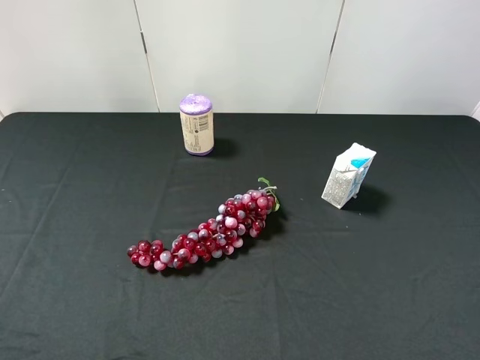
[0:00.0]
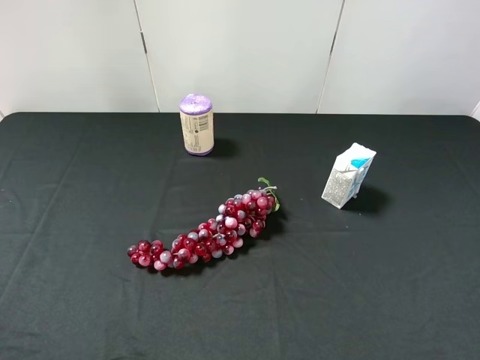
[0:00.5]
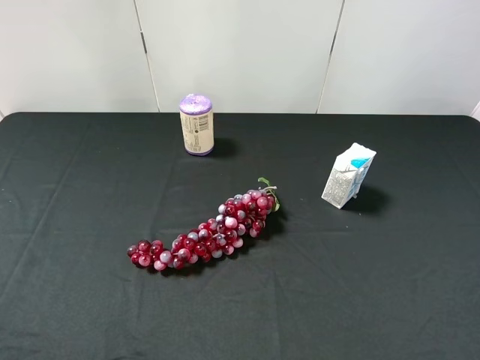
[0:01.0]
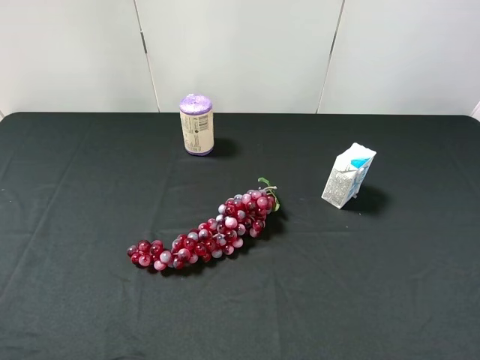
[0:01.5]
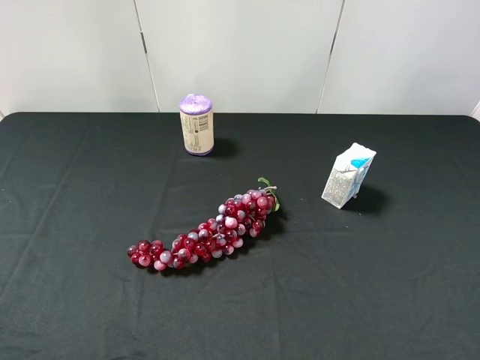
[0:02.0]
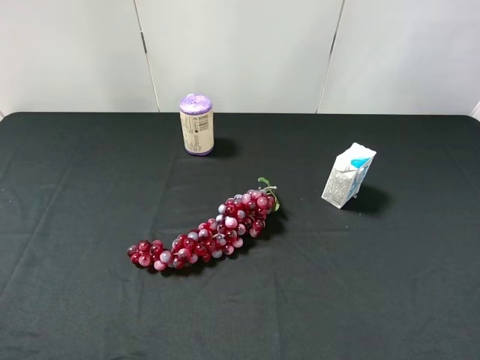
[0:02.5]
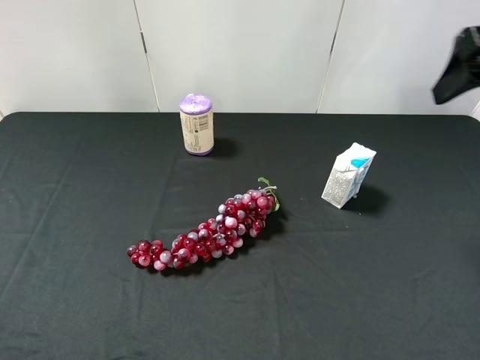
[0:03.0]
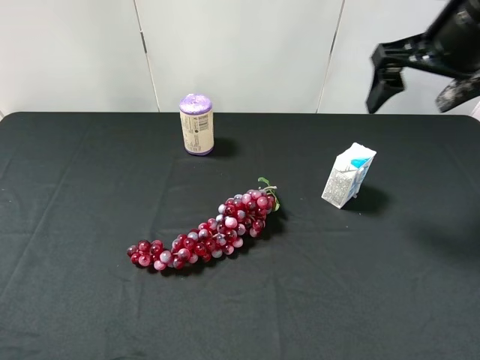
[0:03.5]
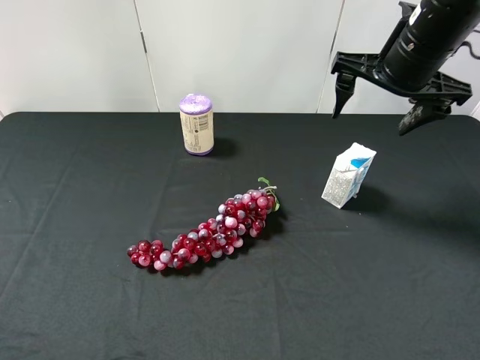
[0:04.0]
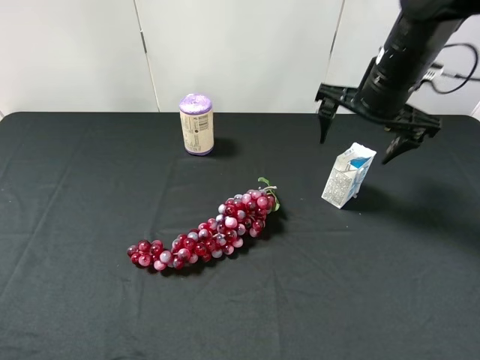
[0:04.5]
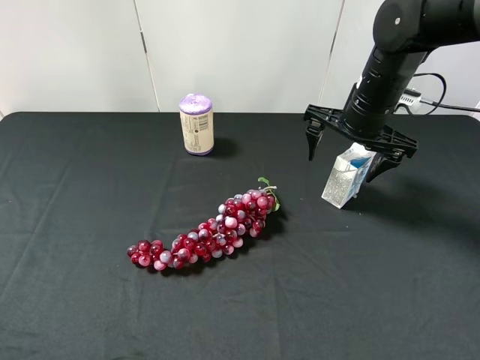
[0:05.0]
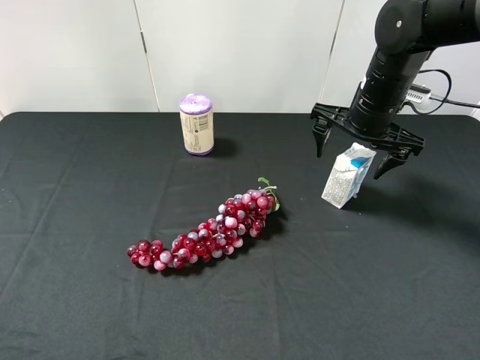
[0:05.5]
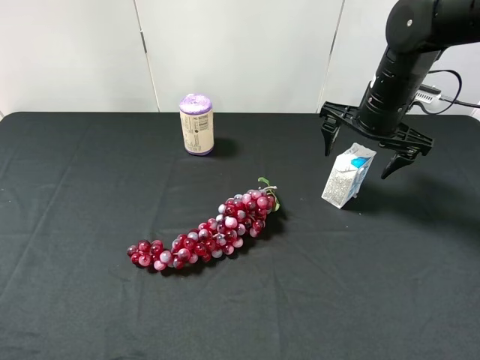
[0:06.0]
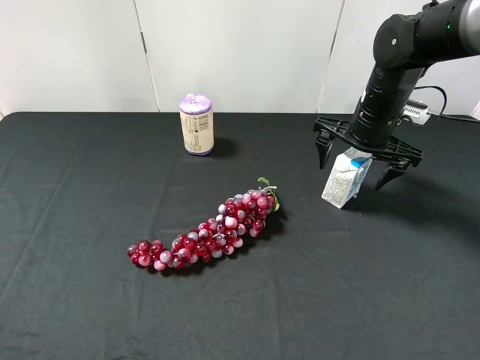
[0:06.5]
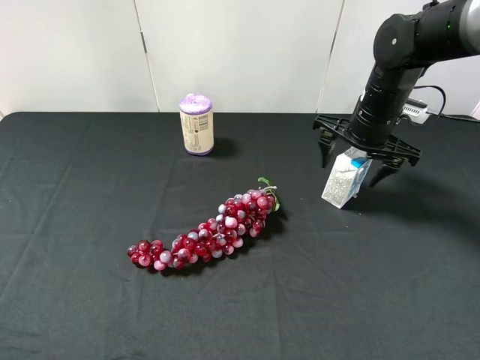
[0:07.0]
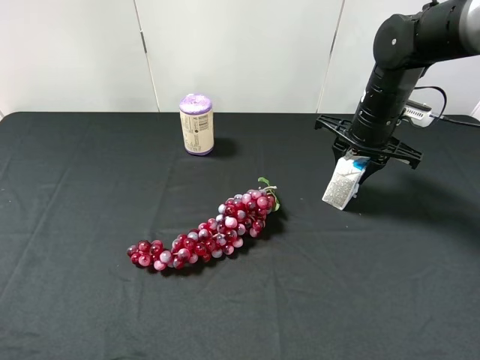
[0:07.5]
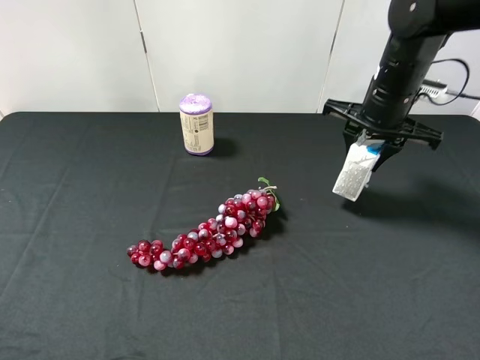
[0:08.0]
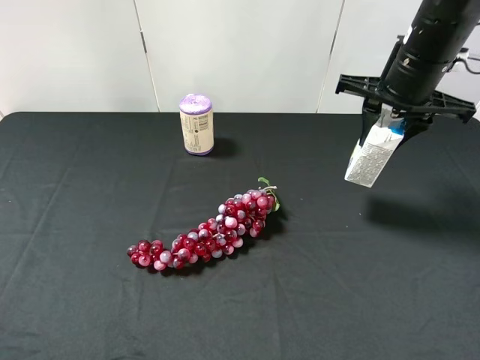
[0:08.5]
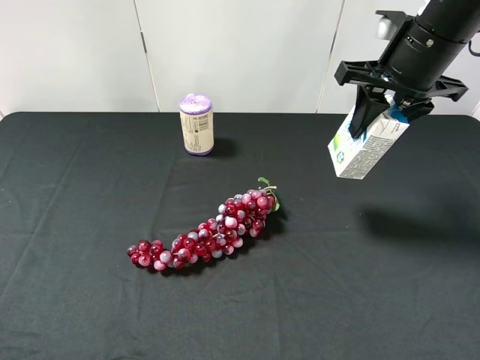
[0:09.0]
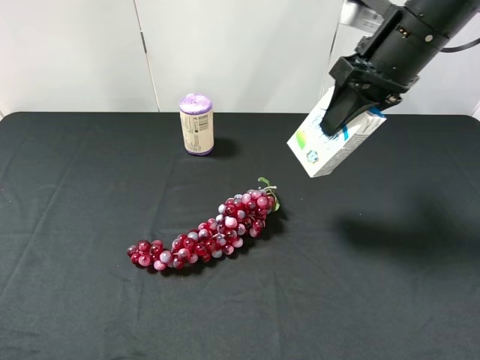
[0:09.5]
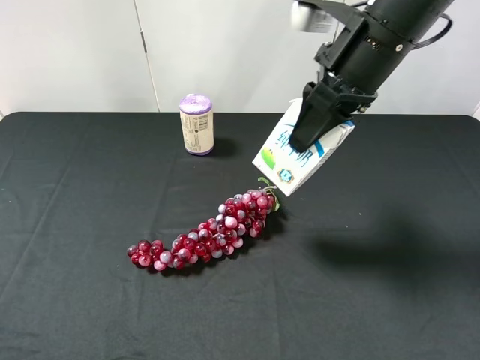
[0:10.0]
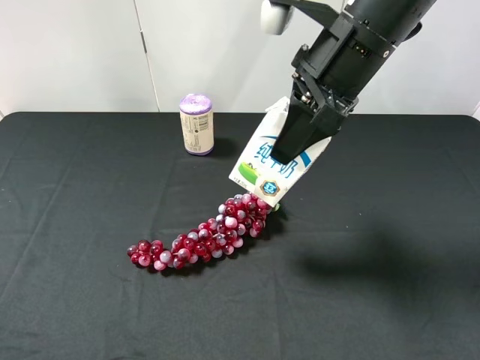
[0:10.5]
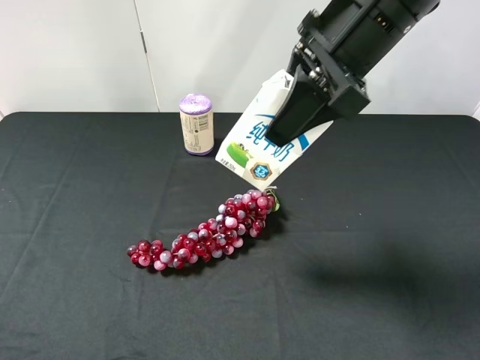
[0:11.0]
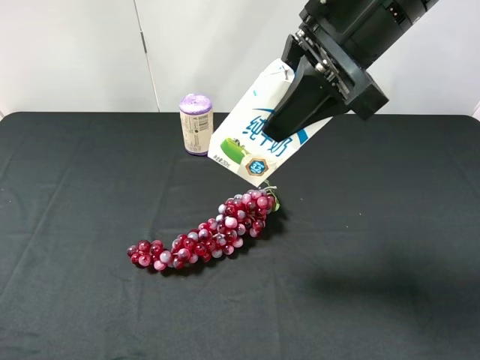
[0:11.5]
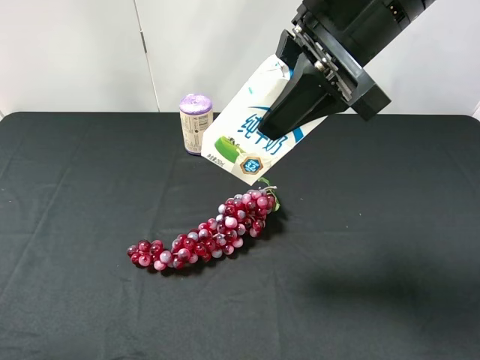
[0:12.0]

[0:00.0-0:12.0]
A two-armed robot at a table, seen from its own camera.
Task of the whole recording: use the right gripper to pick up the item and transfer it from the right gripper to the left gripper.
Step, 0:00.0 to 0:07.0: Use the right gripper to grab the milk on the right side of the table.
0:02.0 to 0:04.0: The right gripper is displaced forward by roughly 30 cm.
0:04.0 to 0:06.0: The right gripper heads downward, covering roughly 10 cm.
0:06.0 to 0:08.0: The right gripper closes up.
0:08.0 to 0:10.0: The right gripper travels upward, to the left and backward by roughly 15 cm.
0:10.0 to 0:12.0: The right gripper ends up some 5 cm from where it was. Meanwhile the left gripper shifts some 5 cm forward.

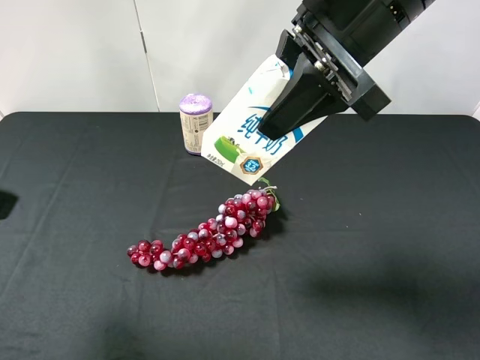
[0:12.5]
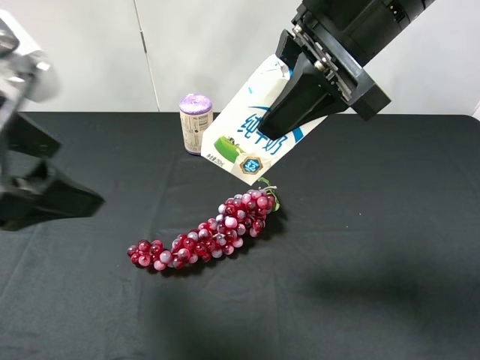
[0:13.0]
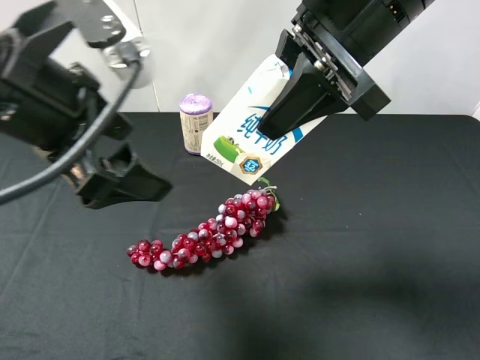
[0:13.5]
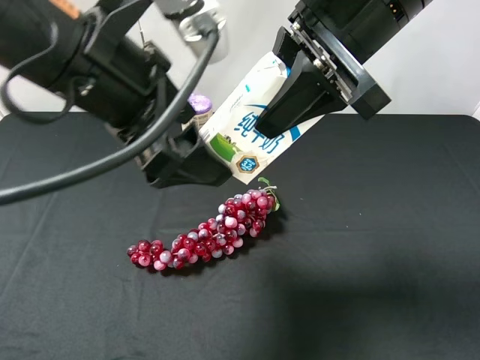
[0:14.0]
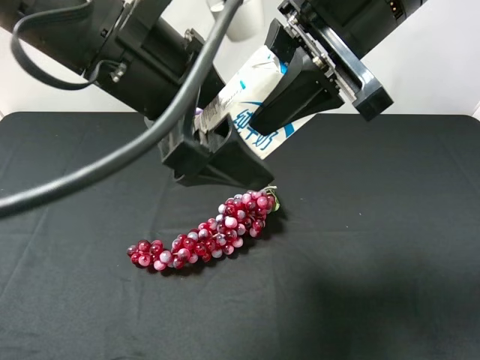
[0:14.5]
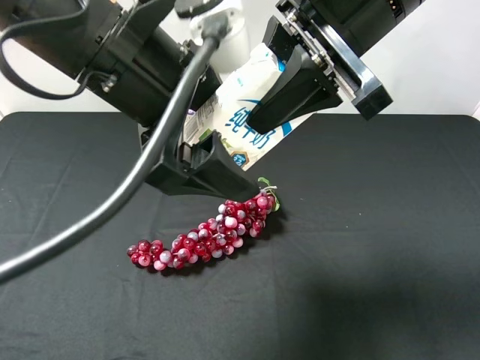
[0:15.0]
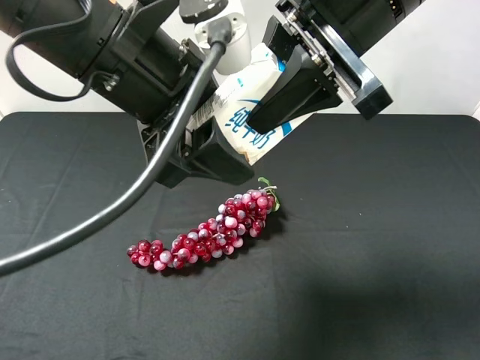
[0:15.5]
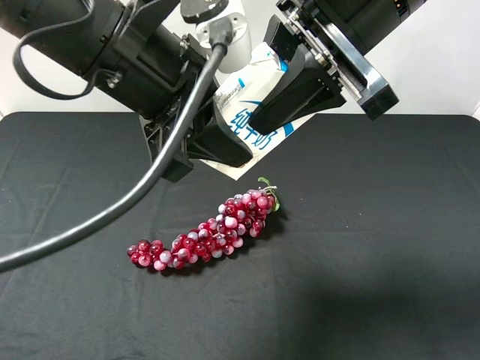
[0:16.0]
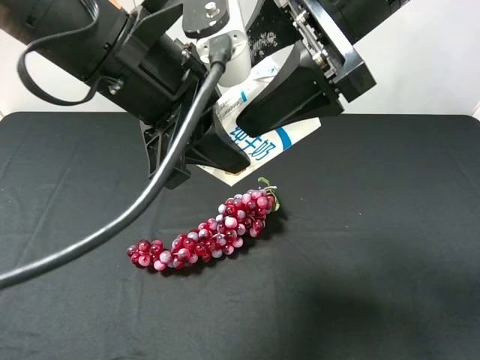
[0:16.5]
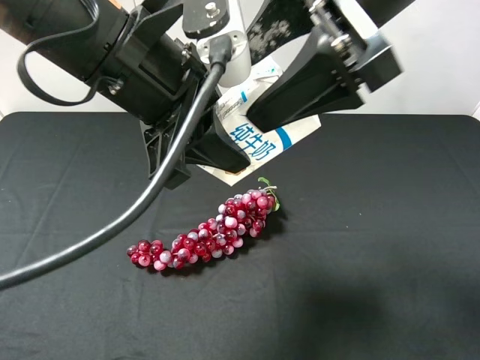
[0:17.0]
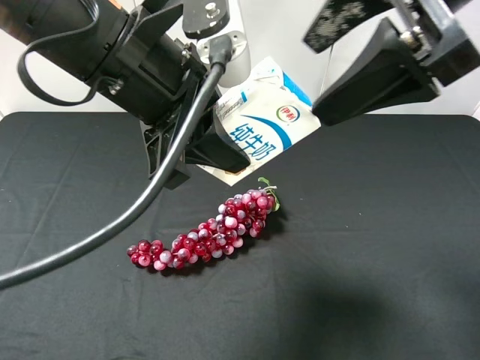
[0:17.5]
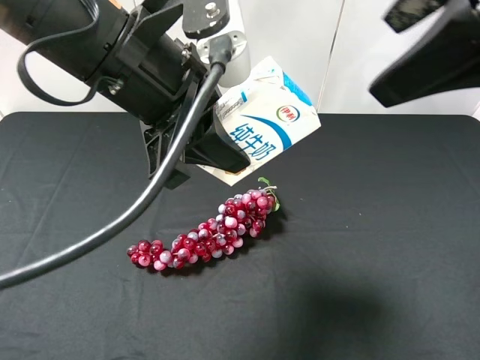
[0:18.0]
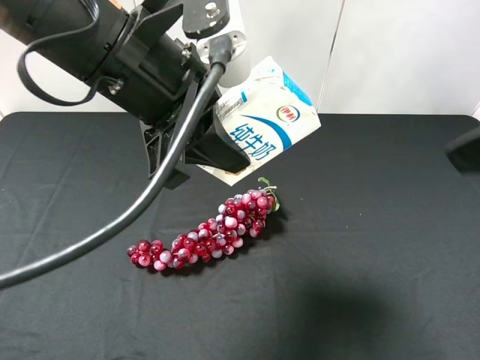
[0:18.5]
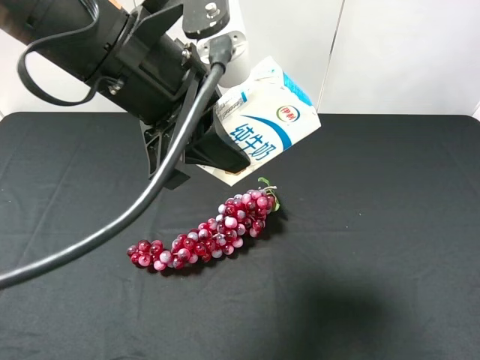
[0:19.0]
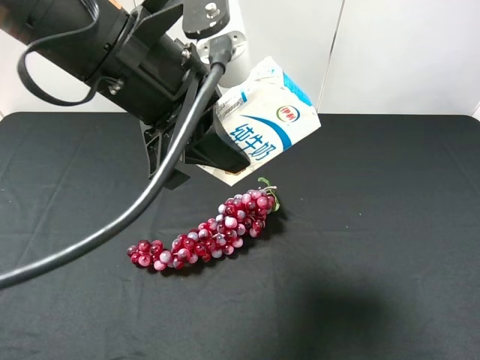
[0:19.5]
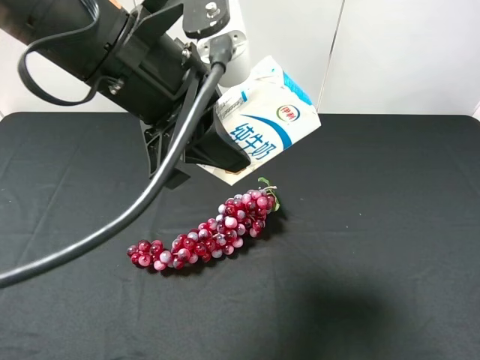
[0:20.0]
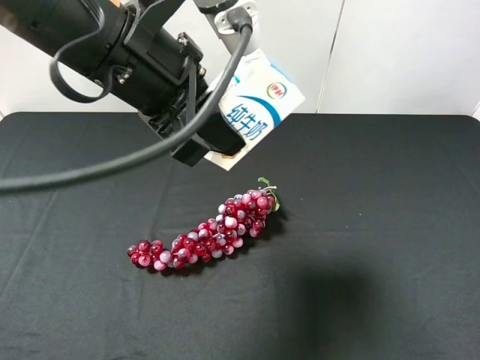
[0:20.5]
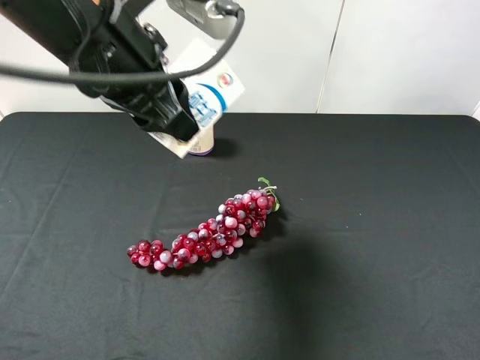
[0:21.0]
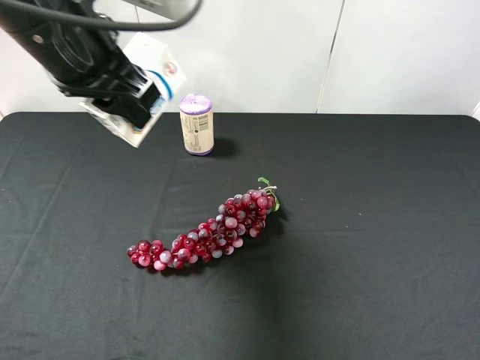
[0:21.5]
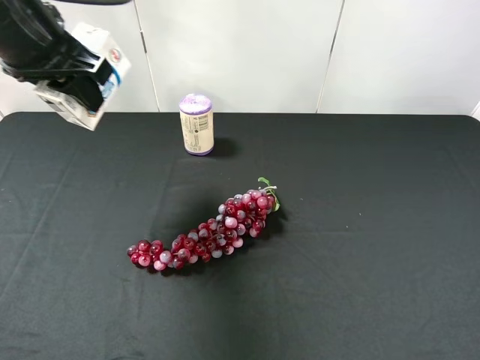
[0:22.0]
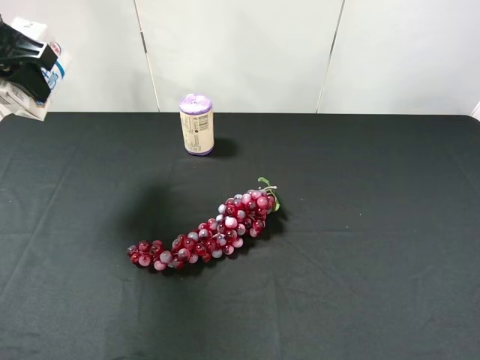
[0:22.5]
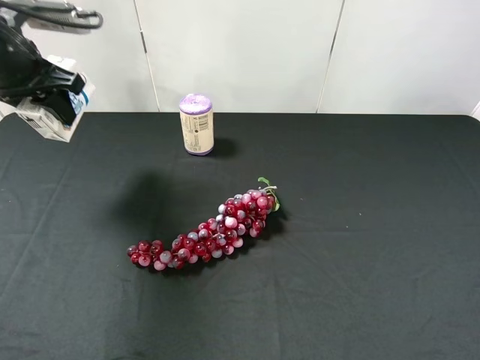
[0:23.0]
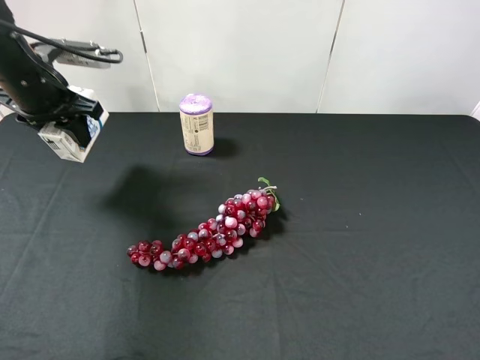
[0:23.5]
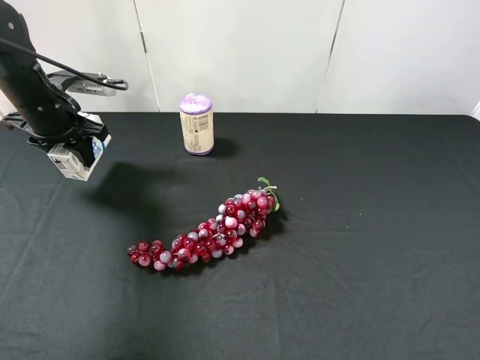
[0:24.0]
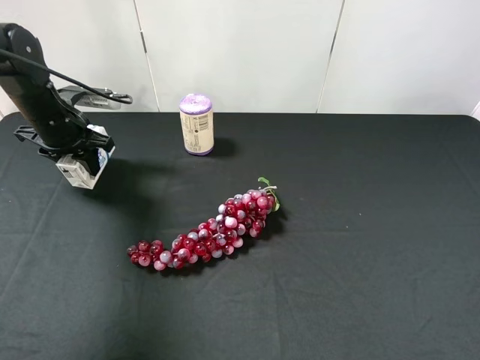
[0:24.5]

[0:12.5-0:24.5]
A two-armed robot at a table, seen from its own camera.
Task of the whole recording: use the right gripper to pick up the item and transfer it from the right gripper to the left gripper.
Step, 0:12.5 to 0:17.0: Pass the milk to the left gripper.
0:12.5 to 0:14.5: The left gripper shifts about 20 cm to the right and forward.
0:14.5 to 0:16.5: The left gripper closes; the right gripper opens.
0:16.5 to 0:18.5: The right gripper travels to the right and backward by approximately 20 cm.
0:18.5 to 0:20.5: The right gripper travels backward, downward and to the right by approximately 15 cm.
0:20.5 to 0:22.5: The left gripper shifts some 20 cm to the left and forward.
0:22.5 to 0:24.5: The left gripper shifts approximately 20 cm downward and forward.

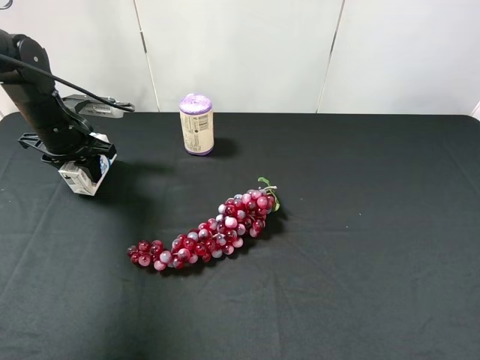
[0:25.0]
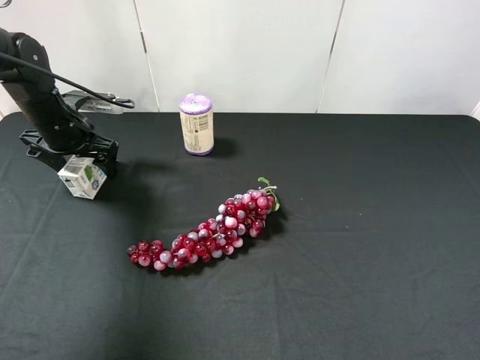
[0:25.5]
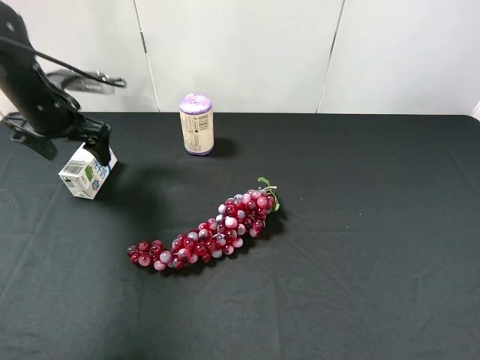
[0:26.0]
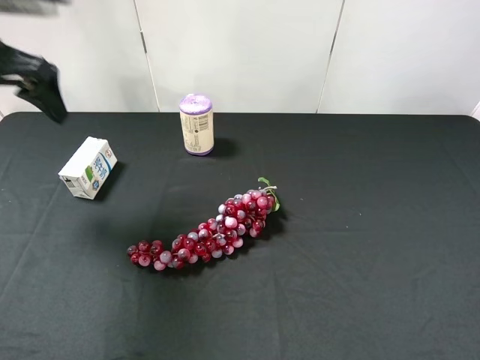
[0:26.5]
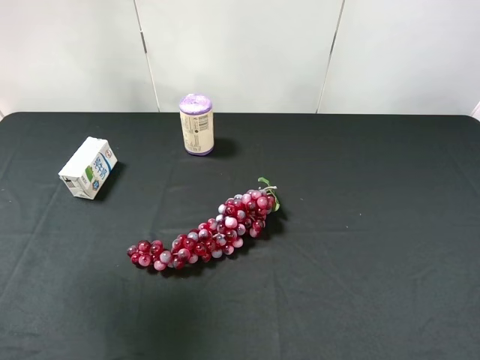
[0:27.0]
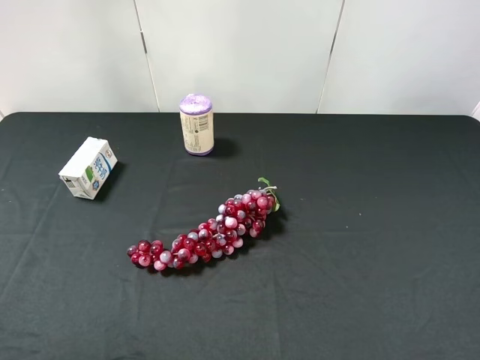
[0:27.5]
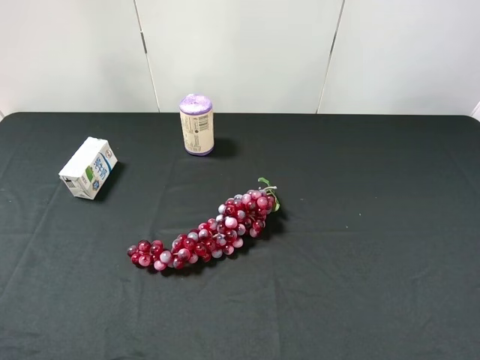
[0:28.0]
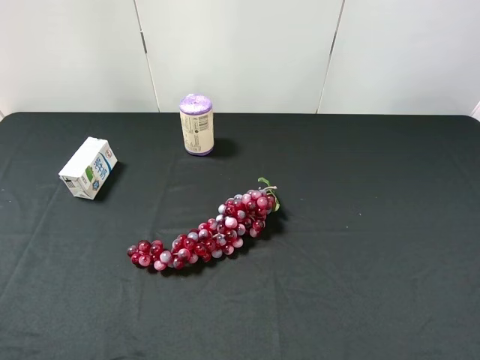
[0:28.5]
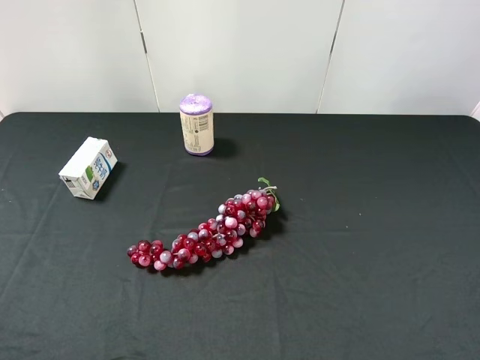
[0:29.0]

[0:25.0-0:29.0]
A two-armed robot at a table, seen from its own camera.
Task of the whole recording: use the right gripper to pick up the item and transfer it from the right gripper to the left gripper.
0:25.0 to 0:27.0: The left gripper heads upward and backward, covering some 35 cm, and opens its fingers.
0:27.0 to 0:29.0: The left gripper travels backward and downward by about 25 cm.
